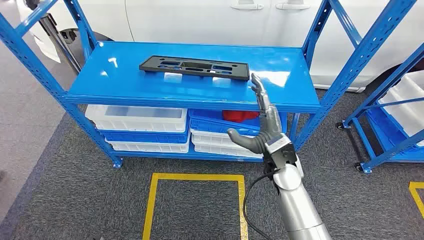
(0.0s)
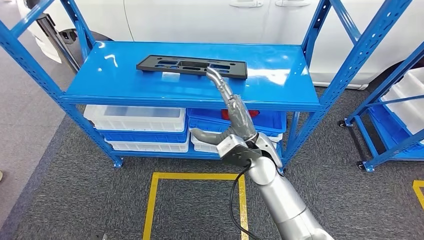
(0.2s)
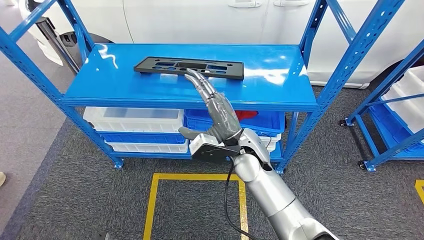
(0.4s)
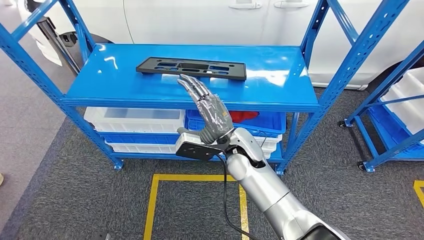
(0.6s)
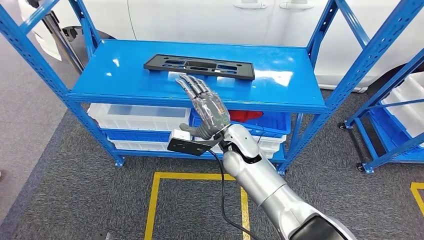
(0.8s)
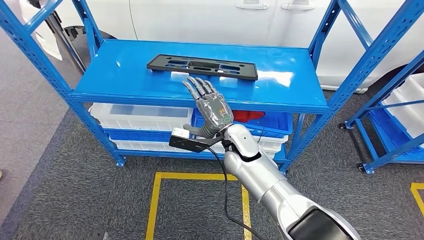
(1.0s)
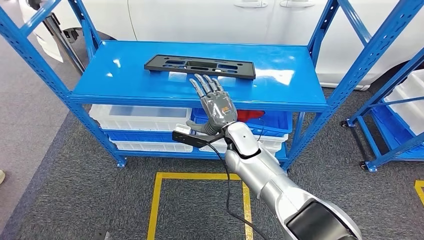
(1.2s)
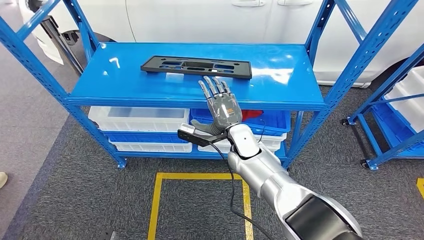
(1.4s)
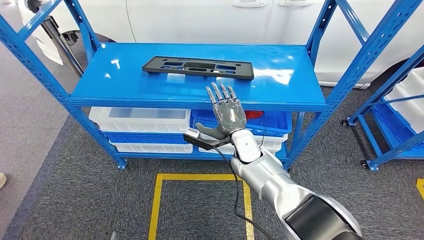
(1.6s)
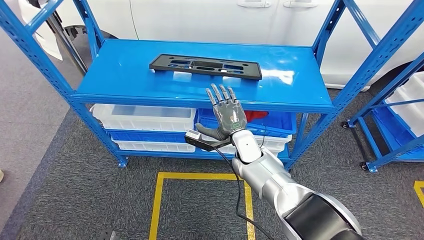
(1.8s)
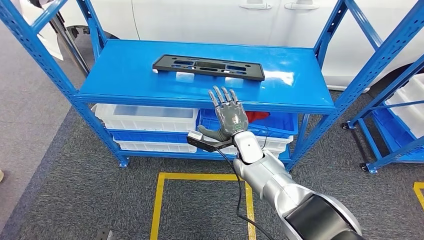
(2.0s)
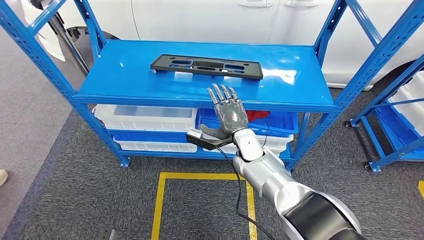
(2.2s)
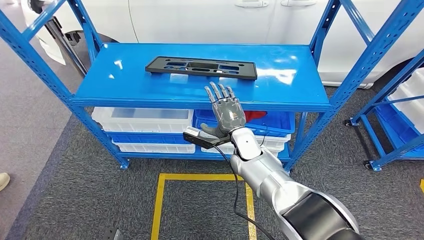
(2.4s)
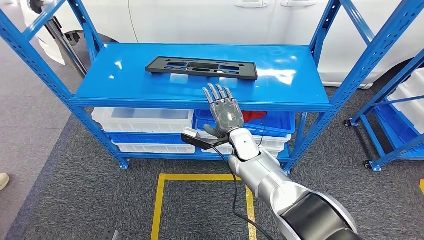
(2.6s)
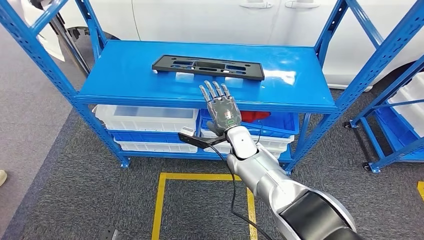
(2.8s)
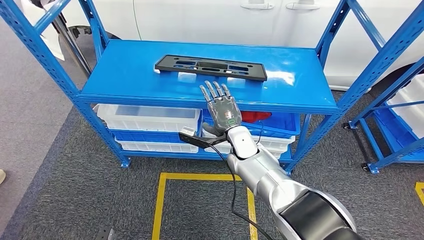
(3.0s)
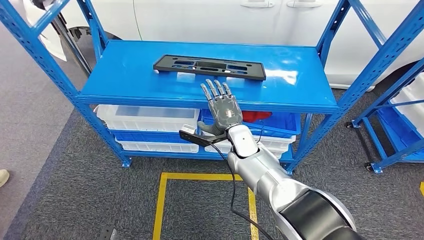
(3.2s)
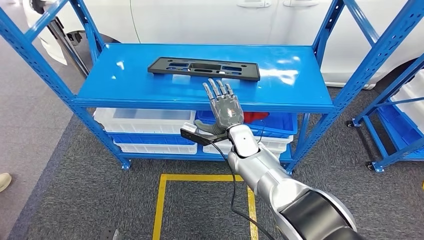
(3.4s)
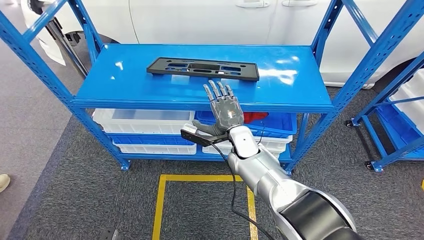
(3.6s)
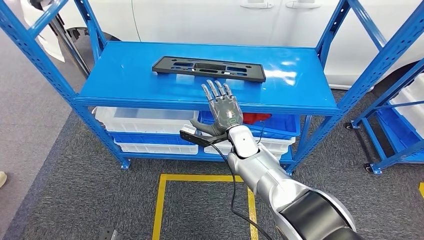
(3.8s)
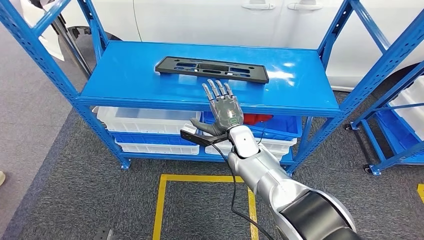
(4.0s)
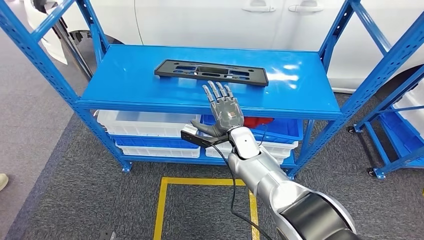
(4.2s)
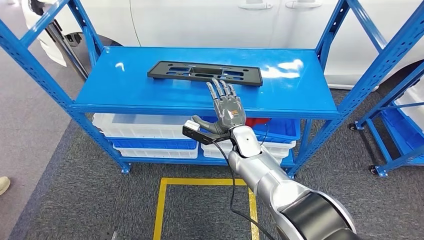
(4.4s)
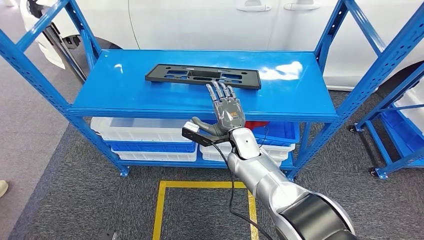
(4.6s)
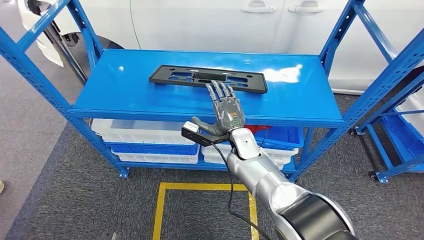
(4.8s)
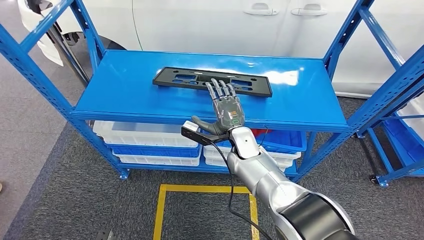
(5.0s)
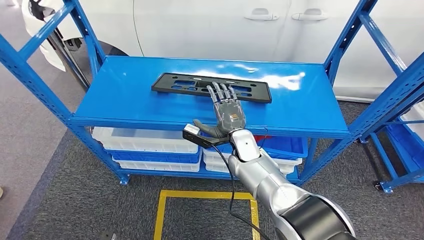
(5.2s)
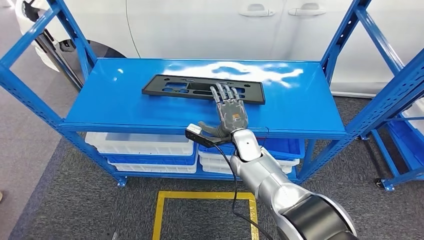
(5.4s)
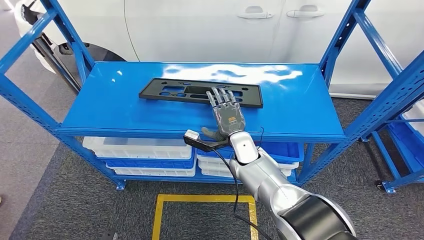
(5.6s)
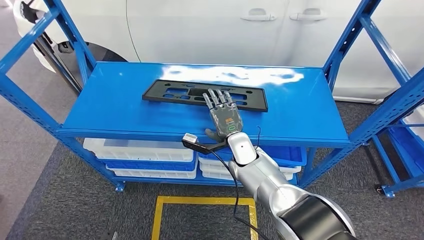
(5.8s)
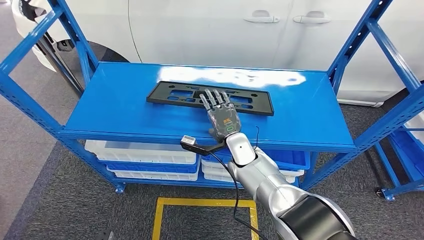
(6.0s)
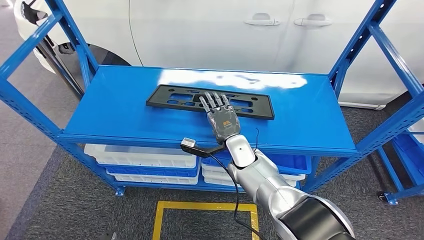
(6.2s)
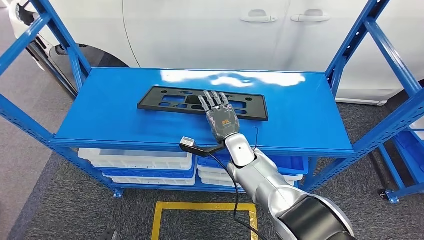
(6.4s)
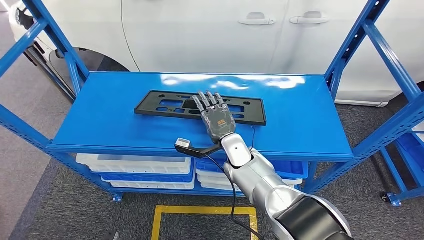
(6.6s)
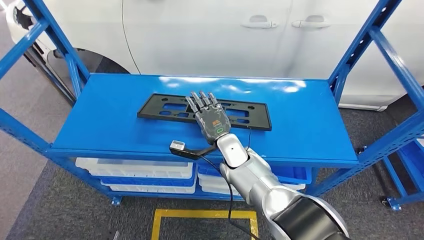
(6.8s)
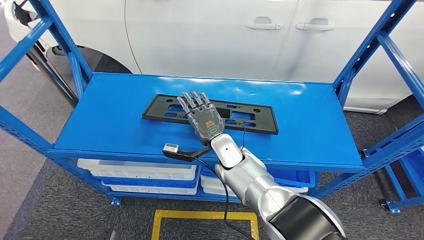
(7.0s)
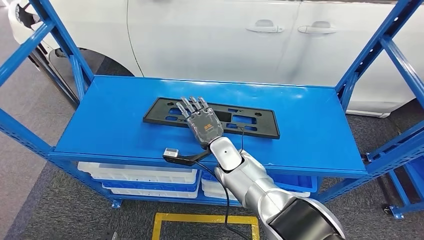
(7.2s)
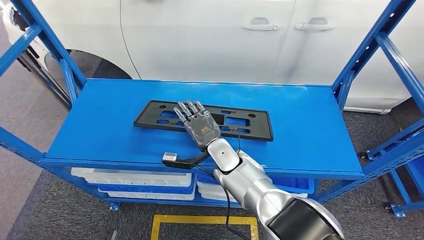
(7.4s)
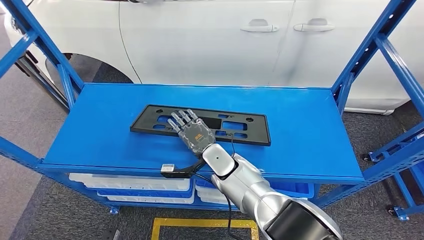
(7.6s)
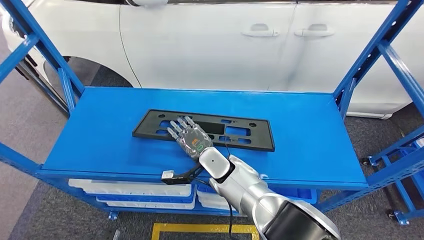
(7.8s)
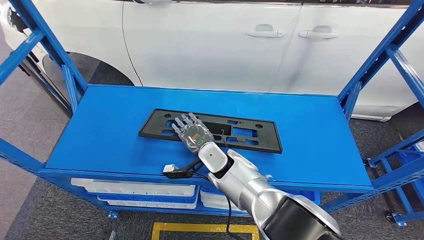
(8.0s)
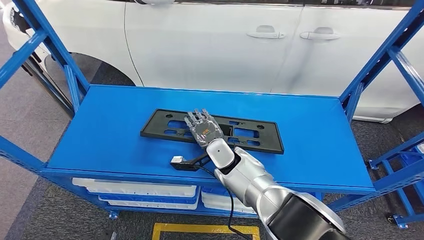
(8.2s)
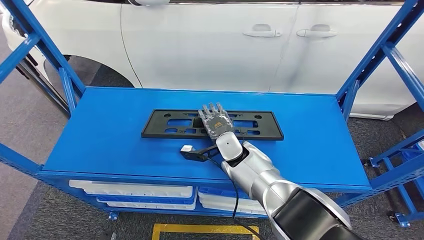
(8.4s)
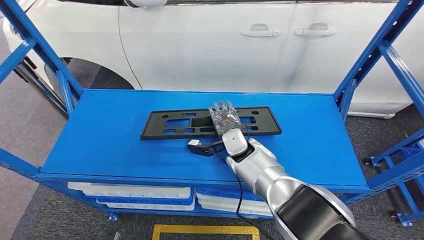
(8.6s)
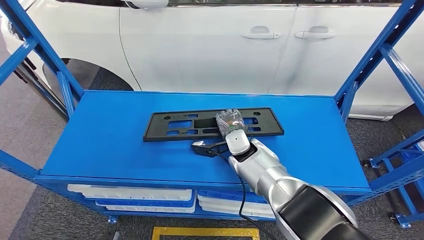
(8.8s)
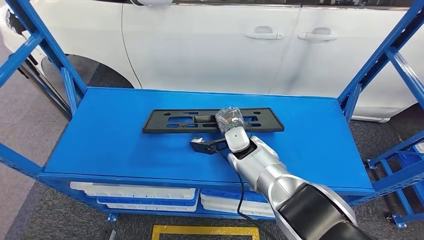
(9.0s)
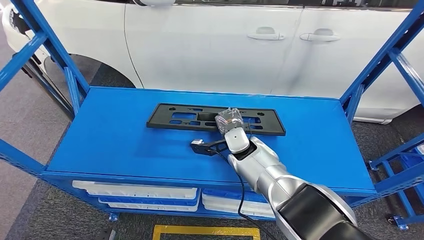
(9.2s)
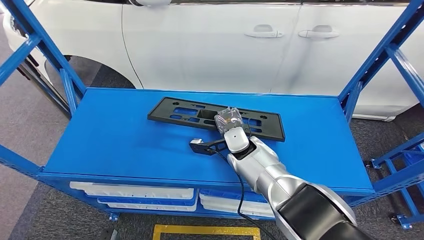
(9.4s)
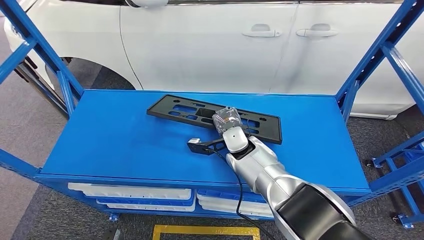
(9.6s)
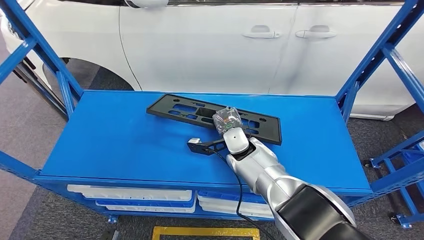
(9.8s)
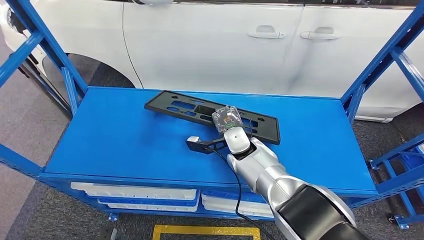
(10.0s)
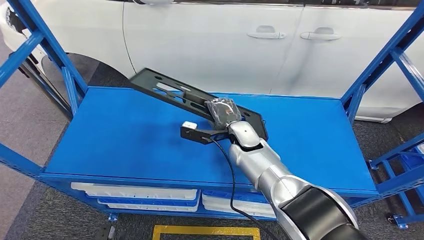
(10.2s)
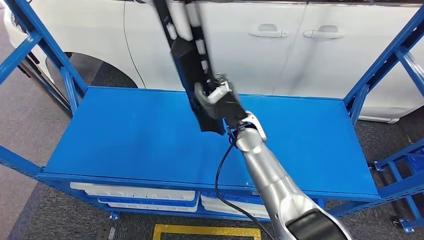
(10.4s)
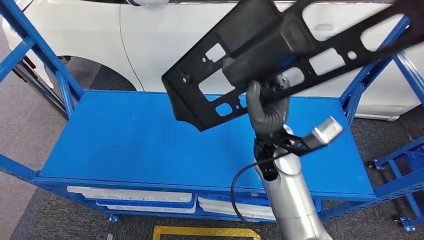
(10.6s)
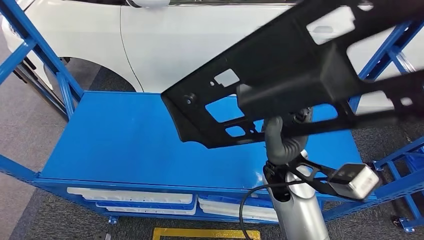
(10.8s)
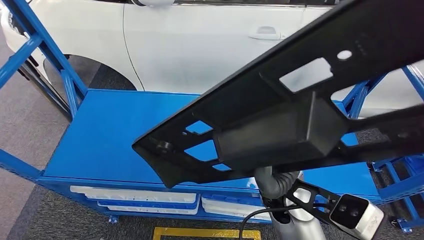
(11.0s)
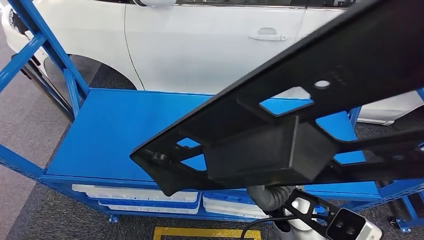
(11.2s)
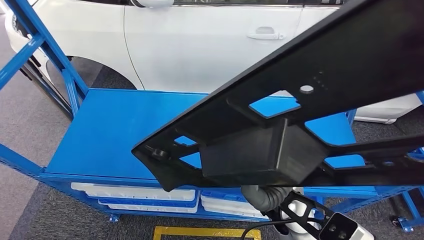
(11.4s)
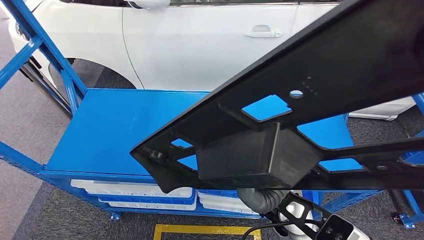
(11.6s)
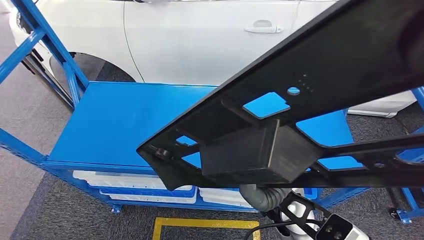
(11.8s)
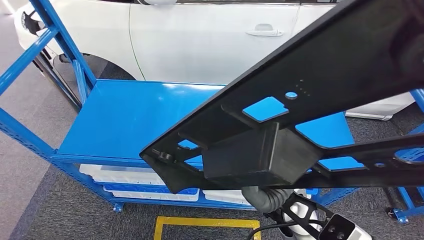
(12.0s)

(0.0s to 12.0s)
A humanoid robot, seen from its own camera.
Step, 0.0s - 10.0s: Pick up the large material from the shelf.

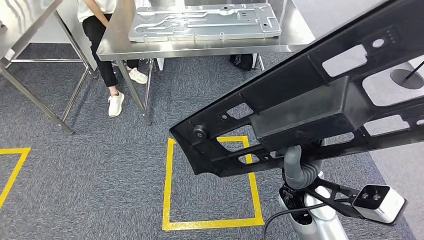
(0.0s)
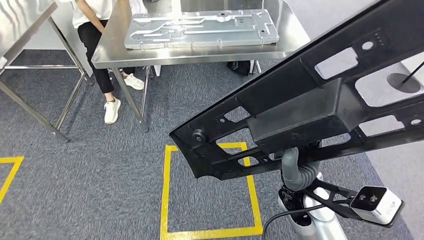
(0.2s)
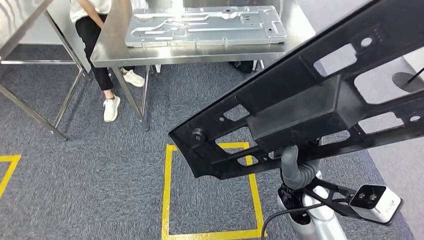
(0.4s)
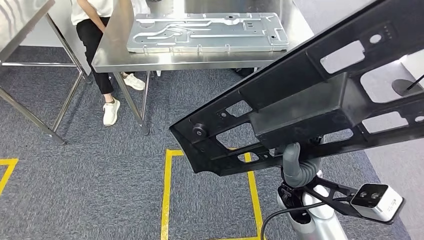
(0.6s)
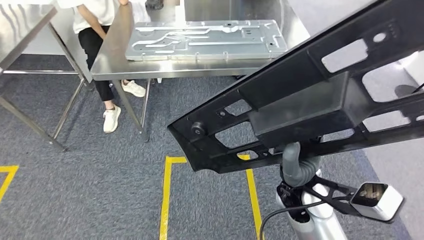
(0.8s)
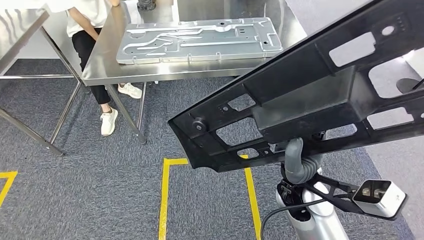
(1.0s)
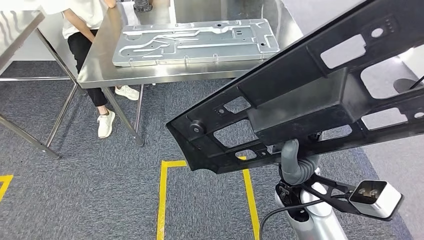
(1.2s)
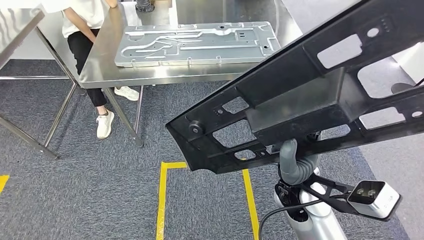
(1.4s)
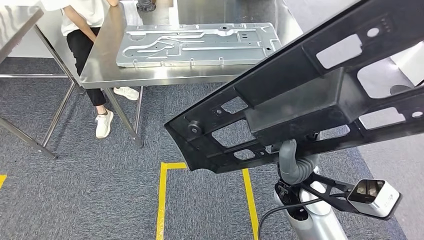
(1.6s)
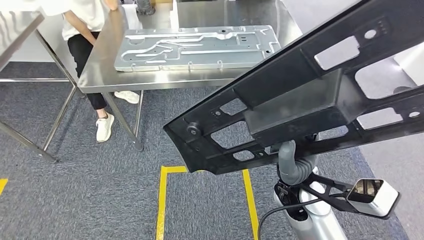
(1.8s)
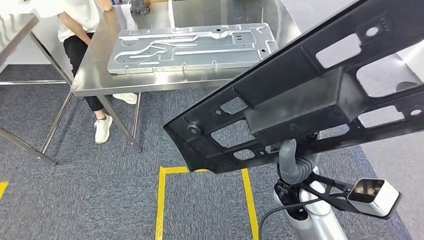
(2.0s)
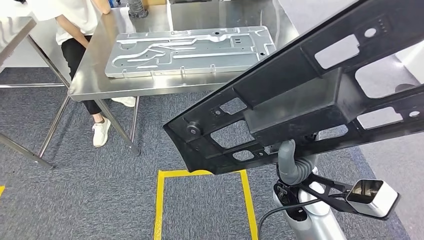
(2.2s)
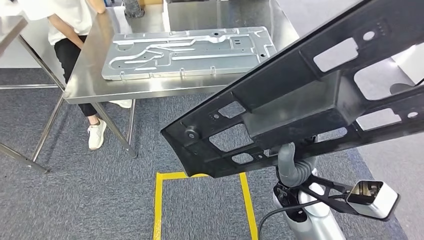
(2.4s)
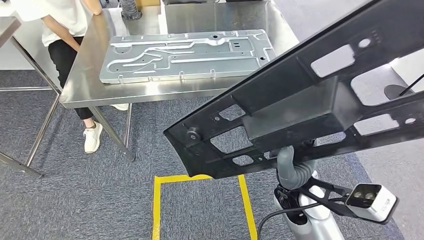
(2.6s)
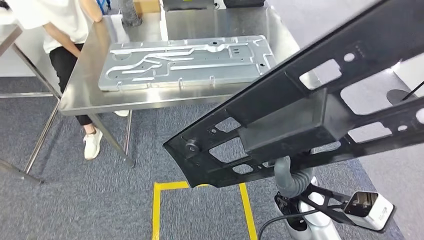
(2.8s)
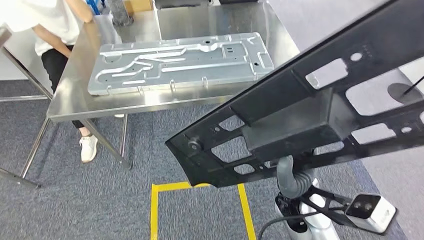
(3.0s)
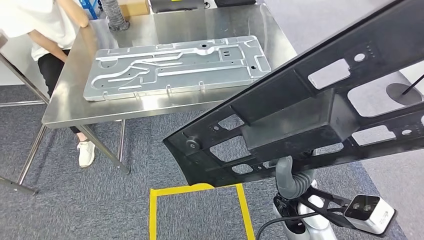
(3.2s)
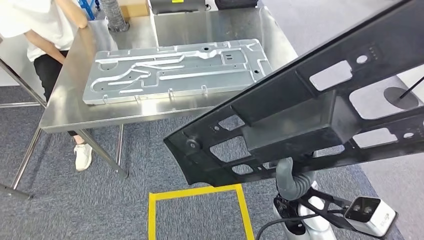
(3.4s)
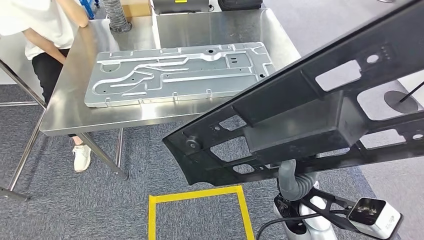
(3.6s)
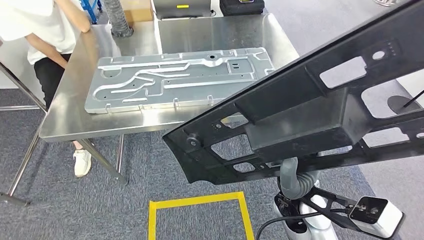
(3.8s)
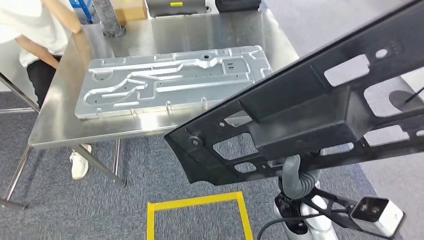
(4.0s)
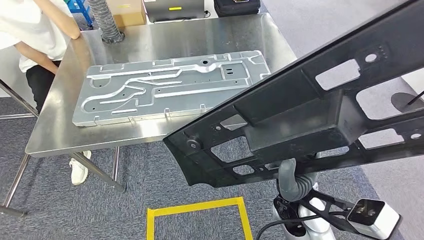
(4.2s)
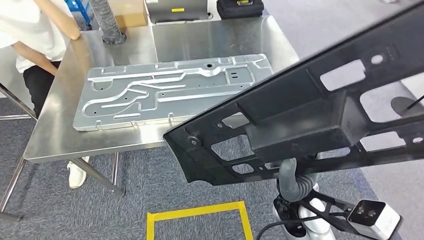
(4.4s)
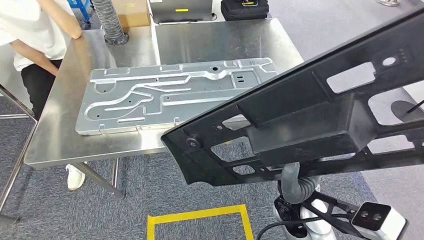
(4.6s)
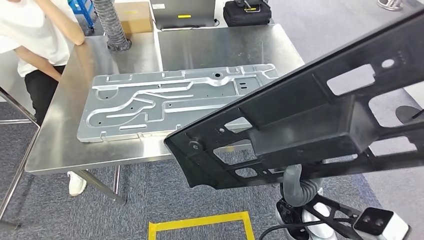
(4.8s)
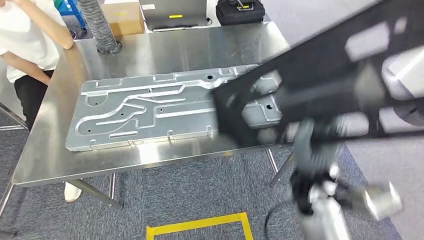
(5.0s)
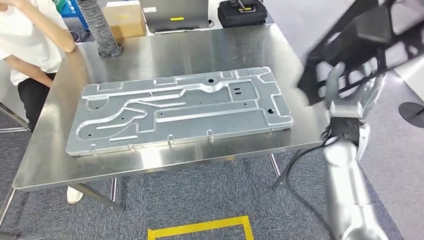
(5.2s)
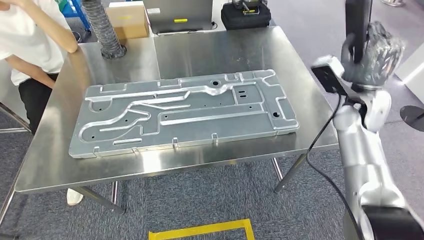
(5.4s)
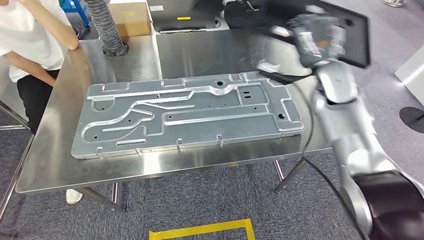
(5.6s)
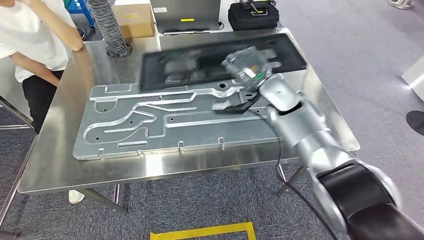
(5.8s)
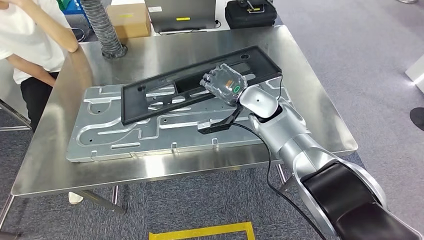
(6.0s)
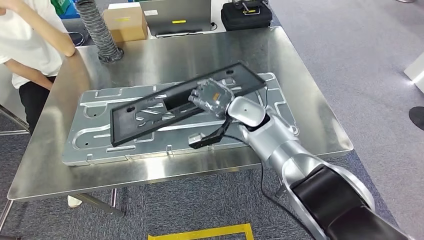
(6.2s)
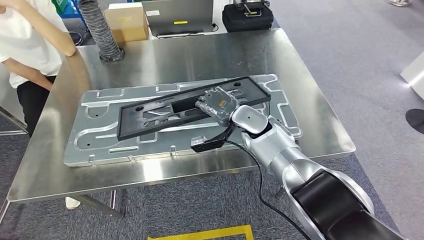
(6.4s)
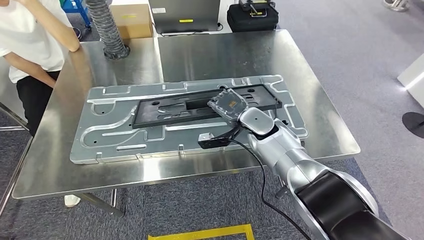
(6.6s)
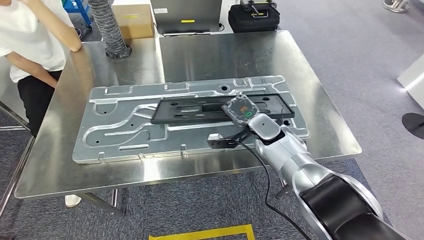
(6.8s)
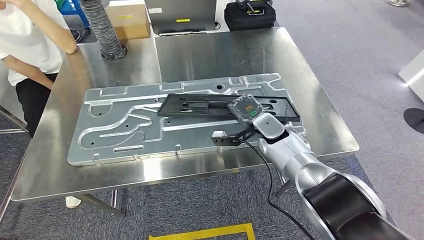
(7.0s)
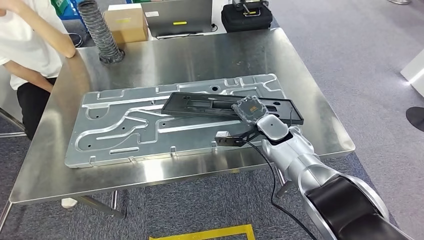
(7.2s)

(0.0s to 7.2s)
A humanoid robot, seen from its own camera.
Step, 0.0s - 5.8s: Move the large material to the workbench.
